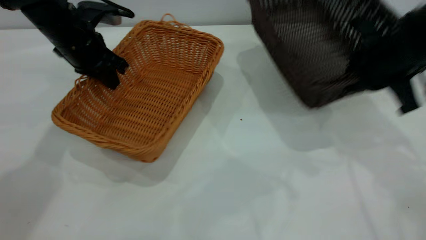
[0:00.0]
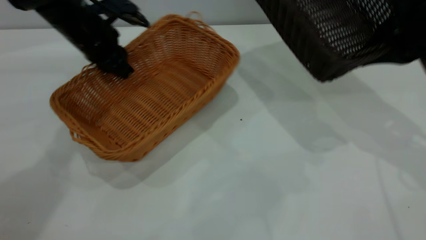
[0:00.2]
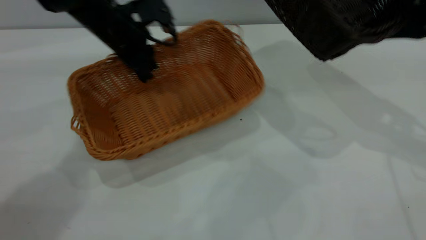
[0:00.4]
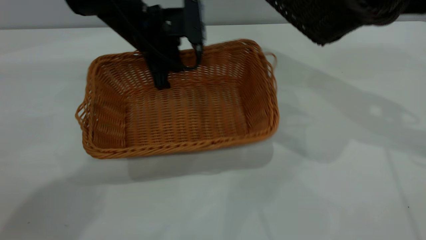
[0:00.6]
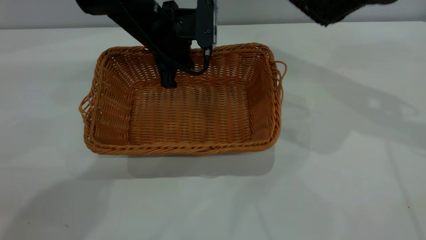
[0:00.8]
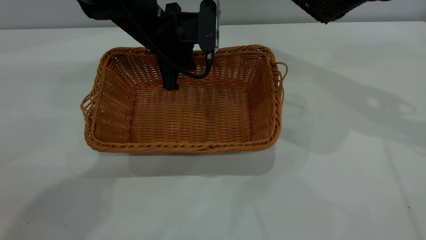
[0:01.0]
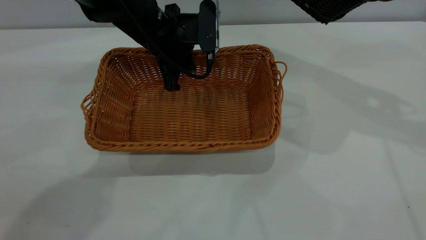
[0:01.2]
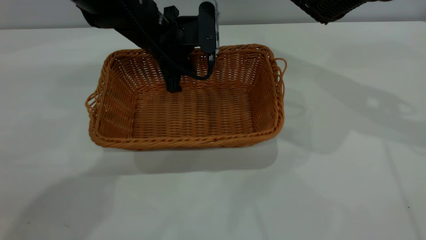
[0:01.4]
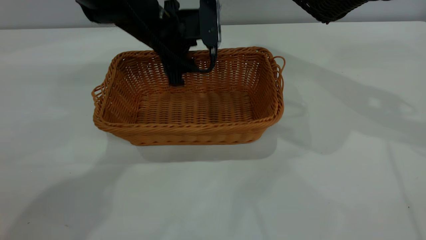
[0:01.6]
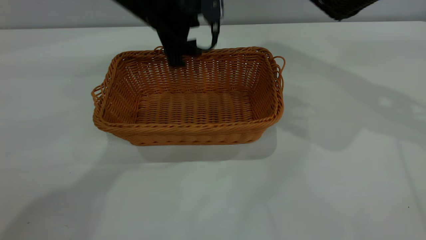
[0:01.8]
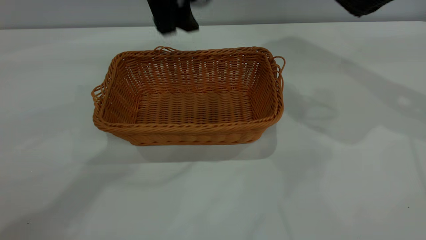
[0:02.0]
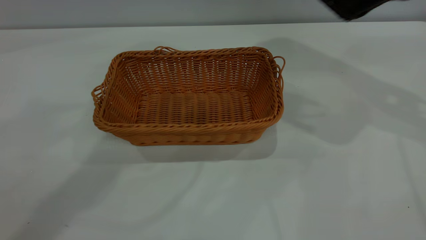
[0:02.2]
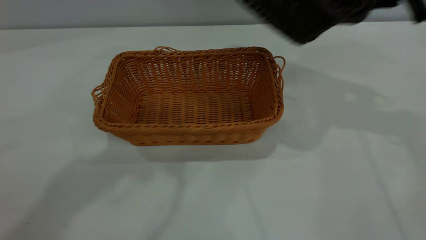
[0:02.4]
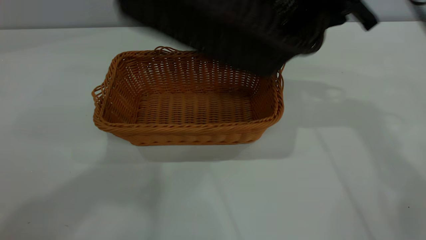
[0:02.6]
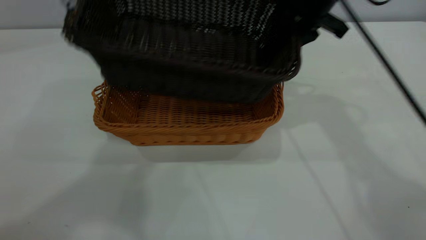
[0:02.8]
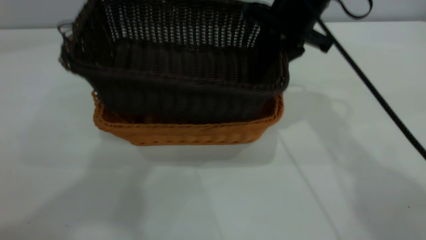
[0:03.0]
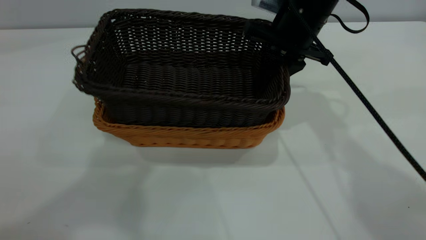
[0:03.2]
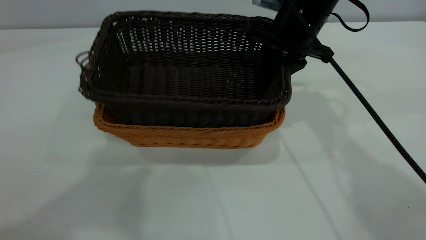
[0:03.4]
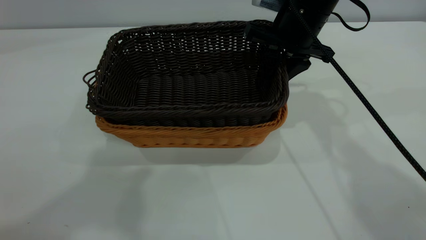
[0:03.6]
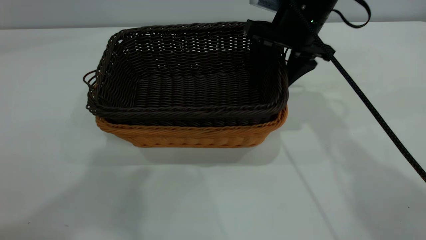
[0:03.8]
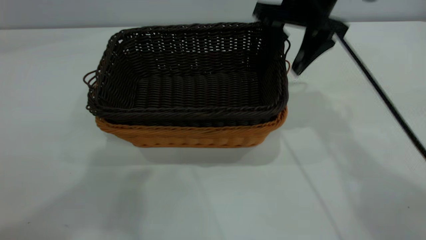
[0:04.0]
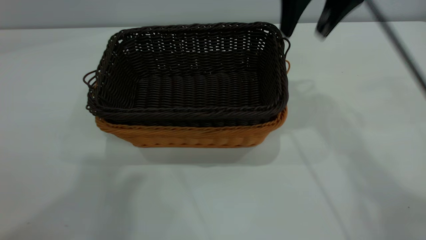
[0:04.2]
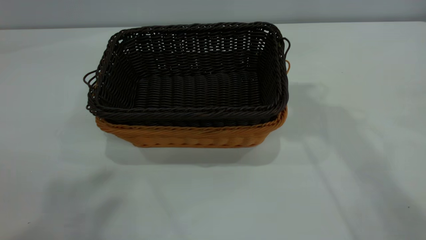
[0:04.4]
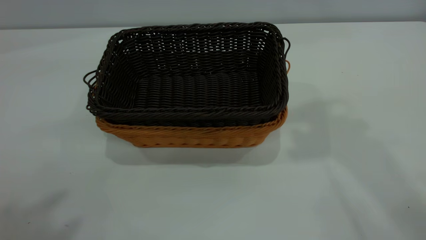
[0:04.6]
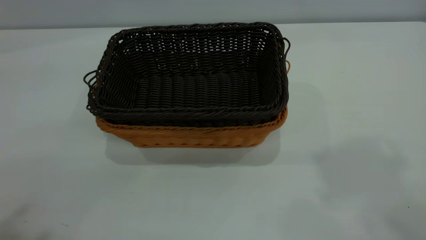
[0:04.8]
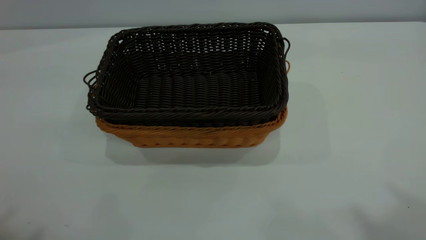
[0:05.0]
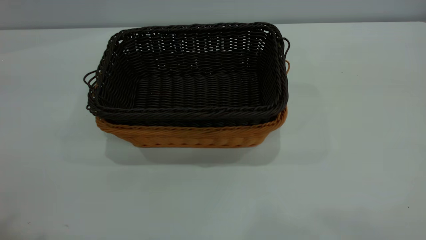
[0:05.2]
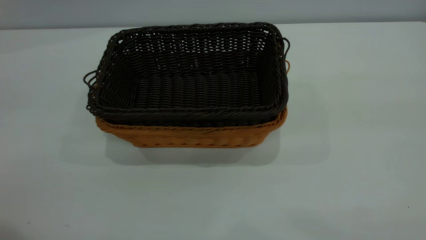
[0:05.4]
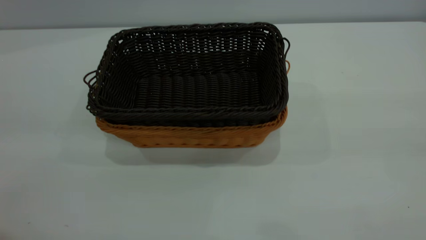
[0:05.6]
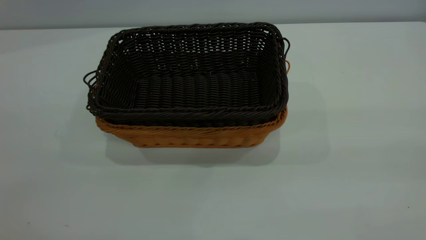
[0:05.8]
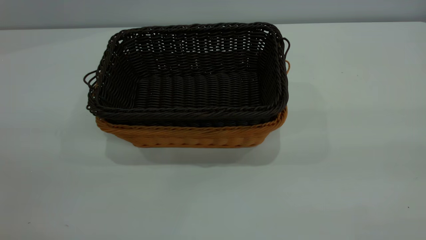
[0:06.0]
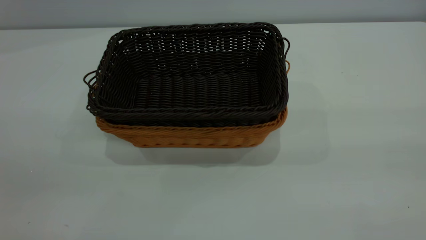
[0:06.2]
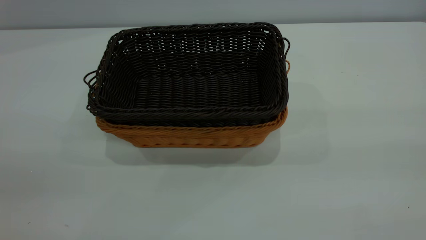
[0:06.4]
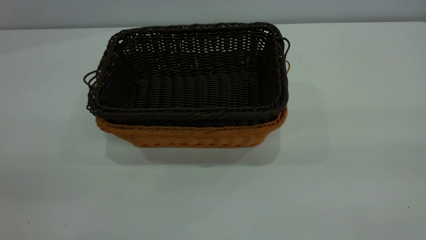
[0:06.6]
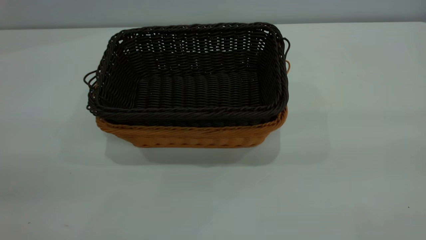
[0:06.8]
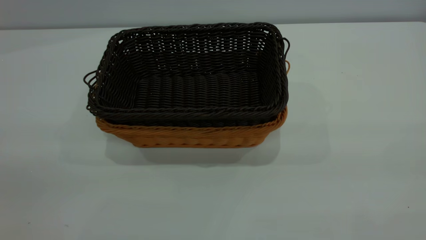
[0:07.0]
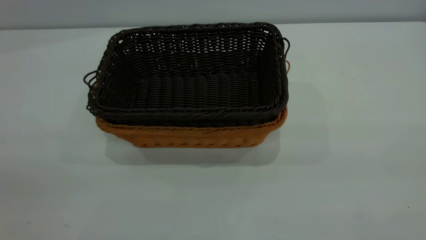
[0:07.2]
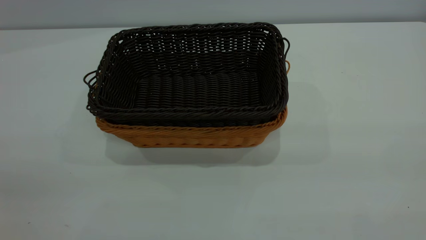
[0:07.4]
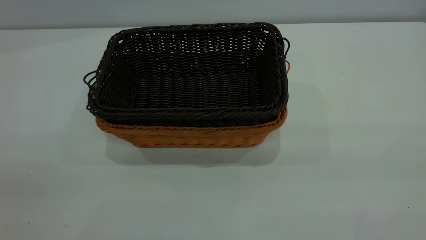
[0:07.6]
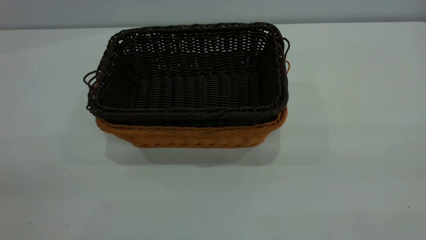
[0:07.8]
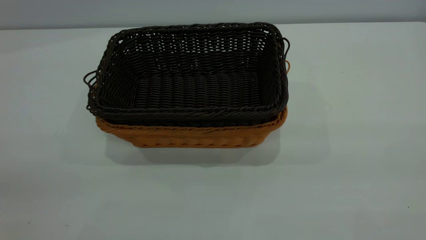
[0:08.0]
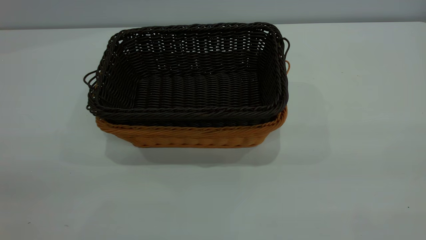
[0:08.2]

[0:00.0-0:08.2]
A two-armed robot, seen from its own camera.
Task of the whole recording: the left gripper grasp the brown basket and place it in the center of the table, the right gripper grasp the black basket and place it inside the brown one.
Step, 0:00.0 to 0:01.8: Place the light-colored basket in the center.
Step, 0:02.0 to 0:04.0: Place the dark basket on top of the light basket.
0:00.0 to 0:01.6: The left gripper heads to the right, covering roughly 15 cm, and opens its fingers; the right gripper goes about 10 cm upward.
0:01.6 to 0:03.2: The right gripper moves to the left and downward, about 20 cm. The left gripper goes about 40 cm upward and backward.
0:03.2 to 0:05.0: The left gripper shifts some 15 cm backward and to the left. The right gripper heads upward and backward, covering some 50 cm, and opens its fingers.
